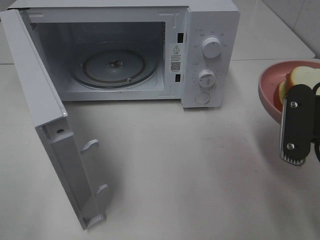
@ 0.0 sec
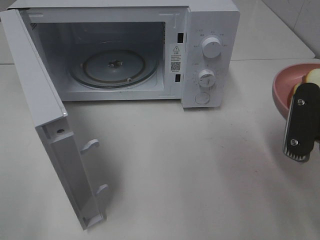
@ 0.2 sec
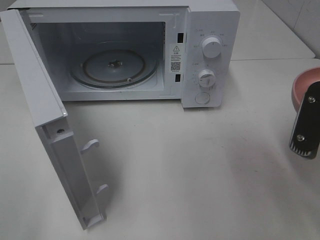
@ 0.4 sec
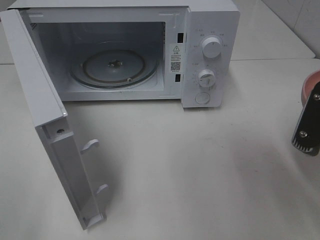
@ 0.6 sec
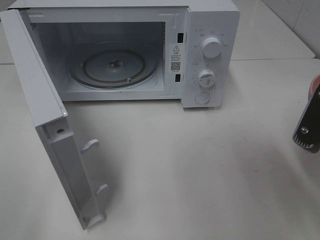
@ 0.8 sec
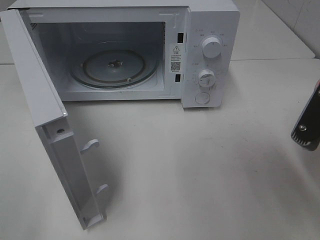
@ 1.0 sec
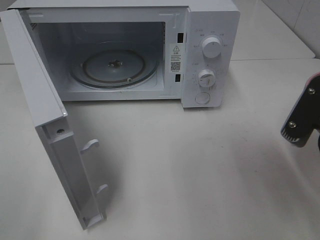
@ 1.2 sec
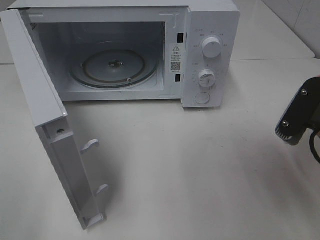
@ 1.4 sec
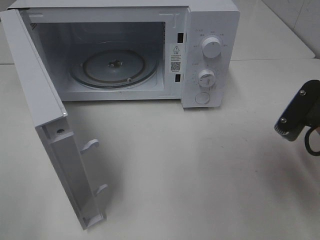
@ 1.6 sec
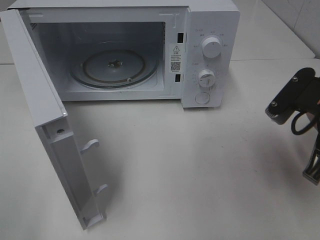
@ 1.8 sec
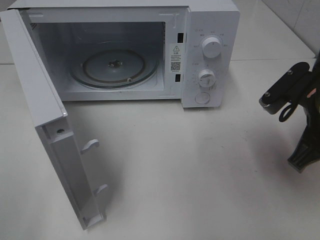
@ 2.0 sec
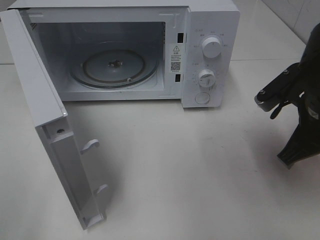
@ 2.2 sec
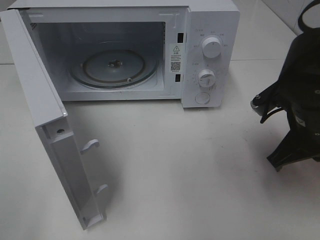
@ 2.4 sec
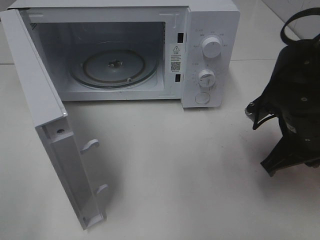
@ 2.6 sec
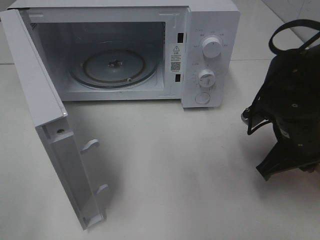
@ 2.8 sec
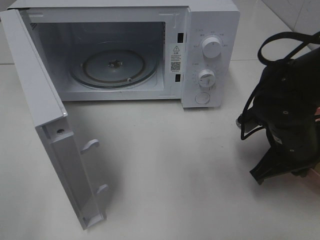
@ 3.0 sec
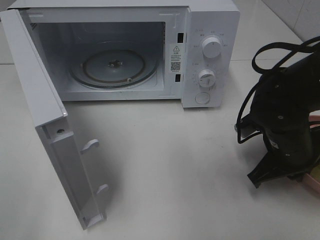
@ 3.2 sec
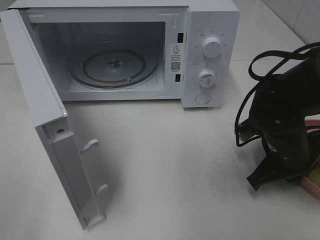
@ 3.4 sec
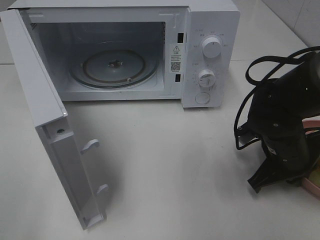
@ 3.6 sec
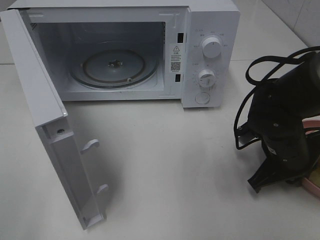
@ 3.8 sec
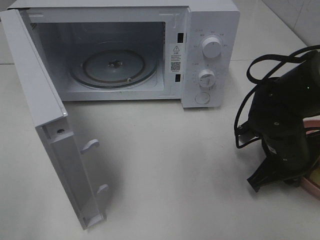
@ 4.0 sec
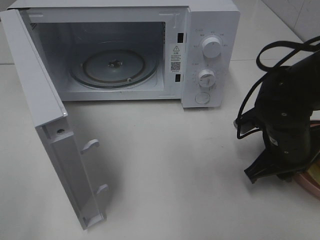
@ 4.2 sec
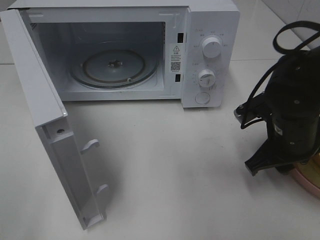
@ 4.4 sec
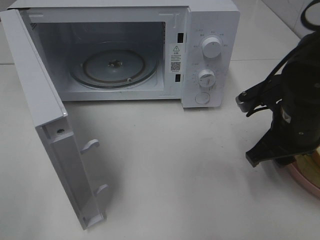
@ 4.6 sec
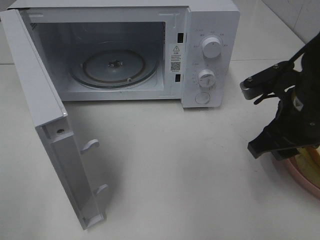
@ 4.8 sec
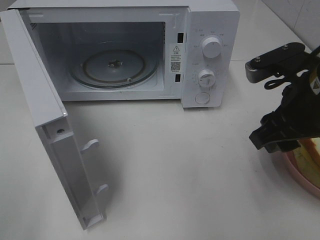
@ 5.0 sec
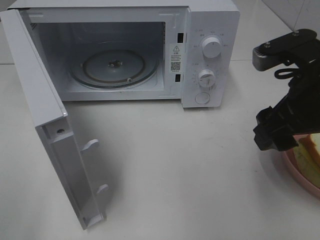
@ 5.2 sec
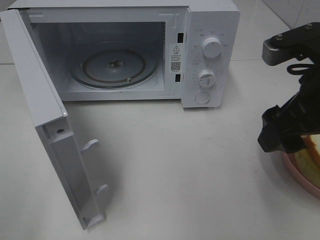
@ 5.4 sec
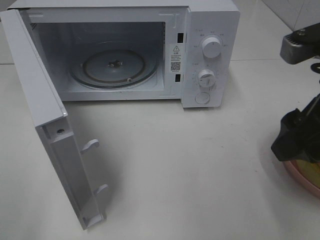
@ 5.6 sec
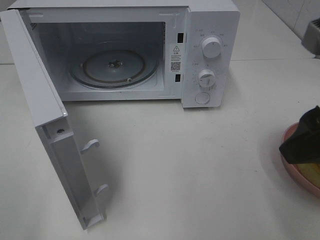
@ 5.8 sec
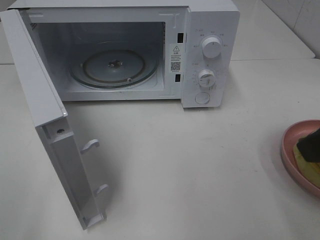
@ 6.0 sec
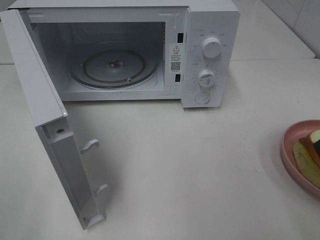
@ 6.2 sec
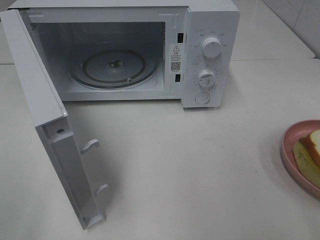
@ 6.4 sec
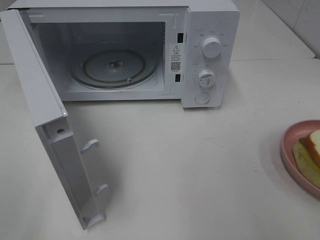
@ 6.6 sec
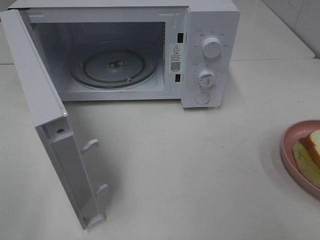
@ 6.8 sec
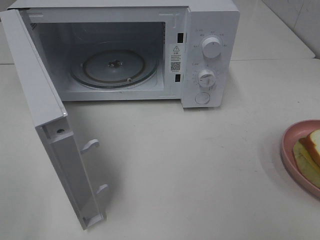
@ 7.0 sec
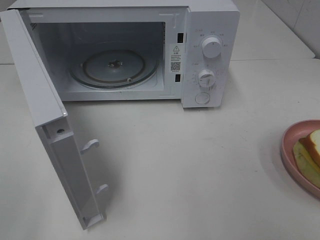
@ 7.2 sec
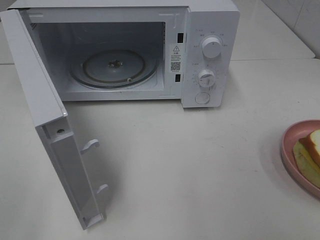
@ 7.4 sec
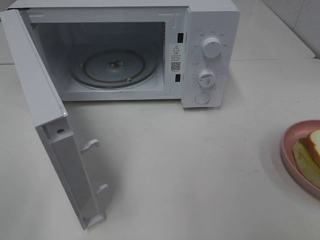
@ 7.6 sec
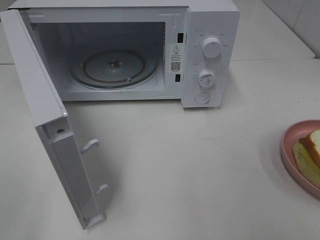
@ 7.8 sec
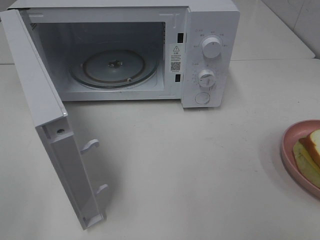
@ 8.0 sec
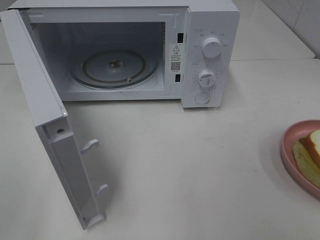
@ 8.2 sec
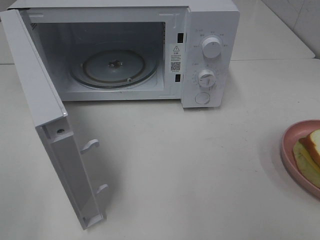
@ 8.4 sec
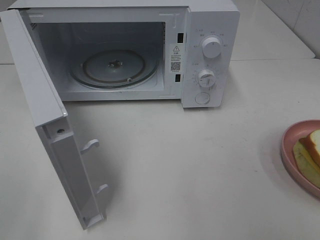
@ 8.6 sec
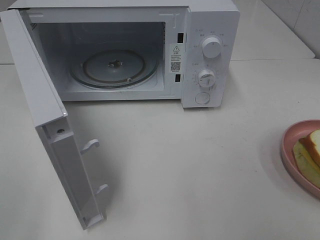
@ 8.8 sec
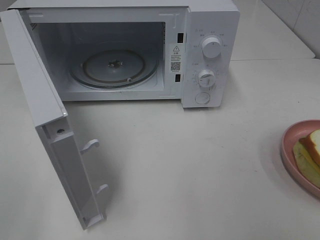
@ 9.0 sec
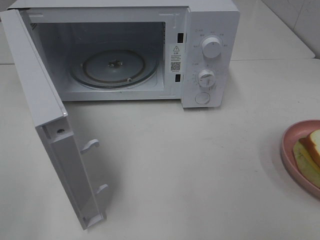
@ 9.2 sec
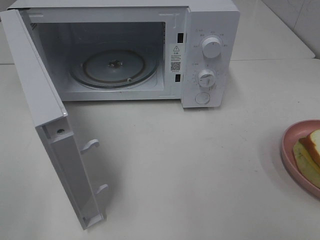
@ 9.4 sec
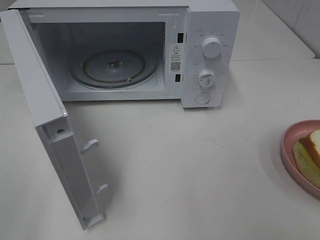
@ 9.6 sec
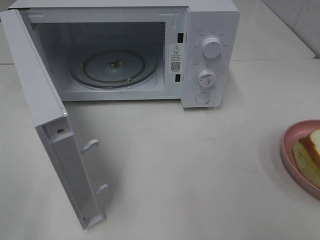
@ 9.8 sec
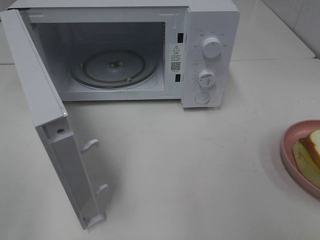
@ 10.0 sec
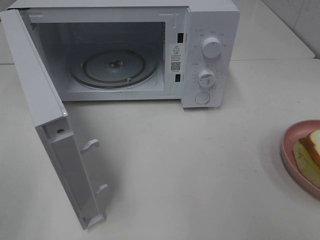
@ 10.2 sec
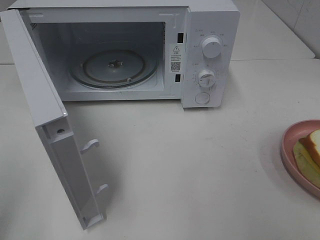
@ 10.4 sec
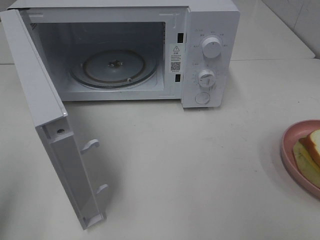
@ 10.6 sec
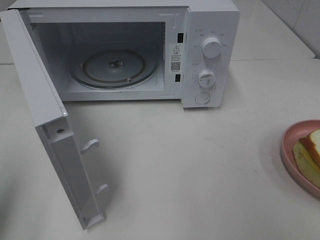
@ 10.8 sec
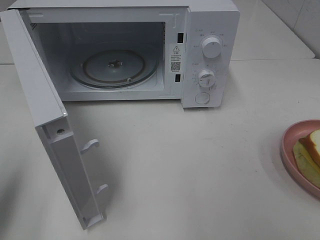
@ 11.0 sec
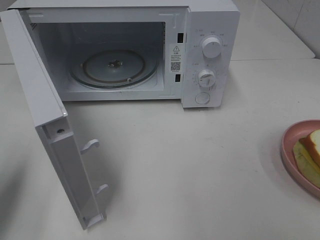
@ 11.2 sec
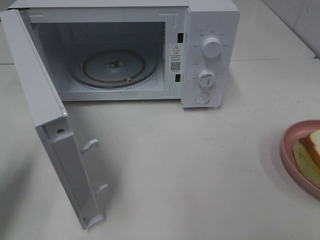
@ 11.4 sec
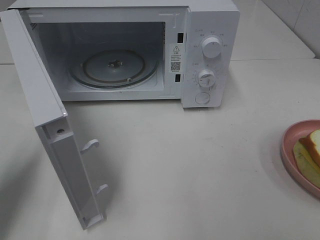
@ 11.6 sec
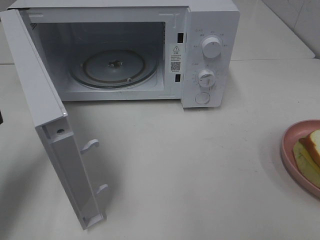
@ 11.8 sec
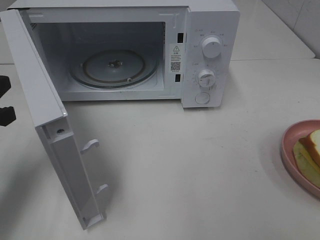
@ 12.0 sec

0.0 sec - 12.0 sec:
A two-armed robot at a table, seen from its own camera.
Task of the whole recording: Heat Sandwich.
Step, 0.0 sec - 4.8 sec: Right hand: place the plate on the table.
1.6 sec - 3.0 sec: The right gripper moves downward and forward, approximately 10 cm.
3.0 sec - 4.4 sec: The right gripper opens.
4.4 sec - 6.0 sec: The right gripper shifts approximately 20 cm upward and backward, and opens up.
6.0 sec - 7.6 sec: The right gripper is displaced backward and to the right by about 15 cm.
7.6 sec - 9.0 sec: Neither gripper changes place.
10.4 sec - 12.0 sec: The left gripper goes roughly 20 cm forward and downward.

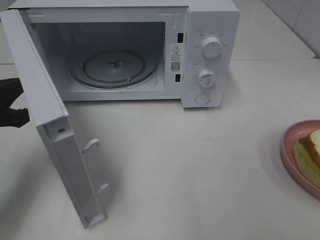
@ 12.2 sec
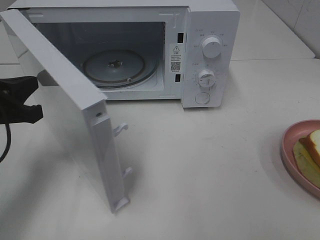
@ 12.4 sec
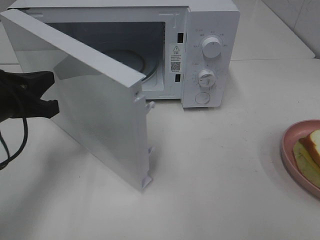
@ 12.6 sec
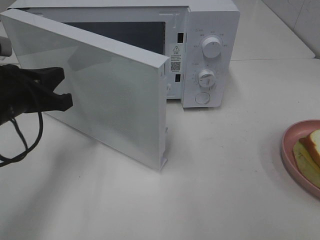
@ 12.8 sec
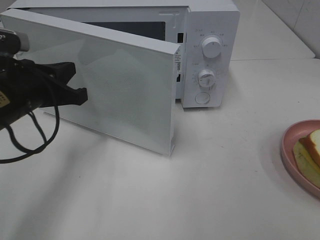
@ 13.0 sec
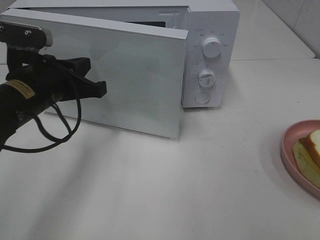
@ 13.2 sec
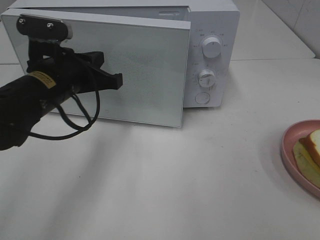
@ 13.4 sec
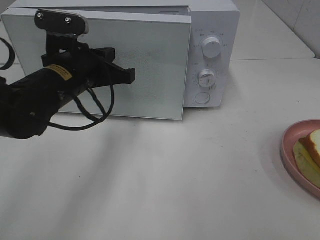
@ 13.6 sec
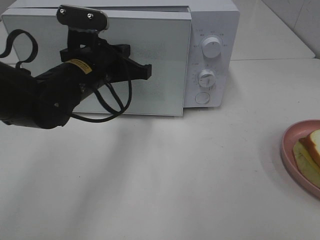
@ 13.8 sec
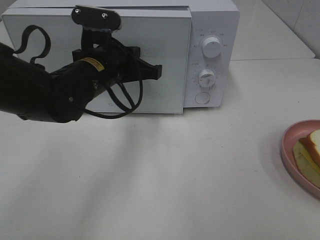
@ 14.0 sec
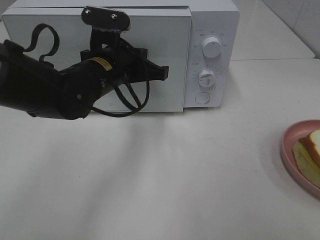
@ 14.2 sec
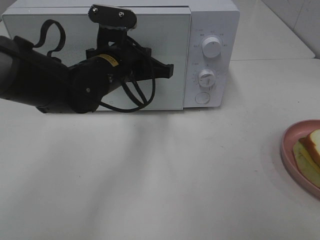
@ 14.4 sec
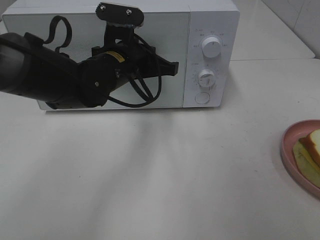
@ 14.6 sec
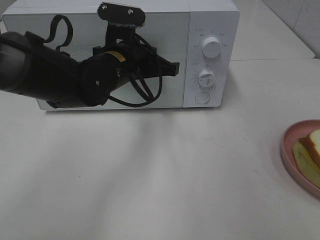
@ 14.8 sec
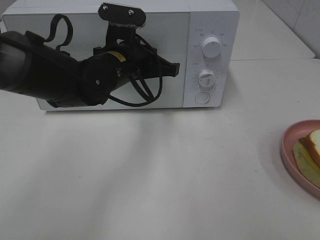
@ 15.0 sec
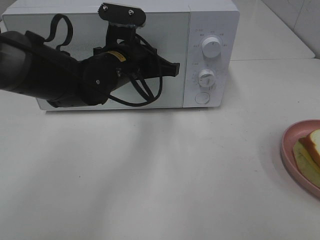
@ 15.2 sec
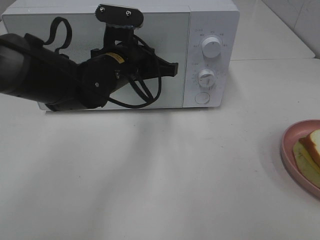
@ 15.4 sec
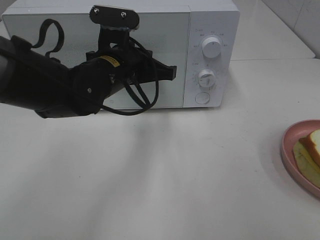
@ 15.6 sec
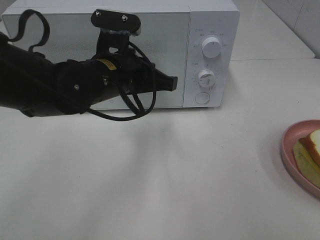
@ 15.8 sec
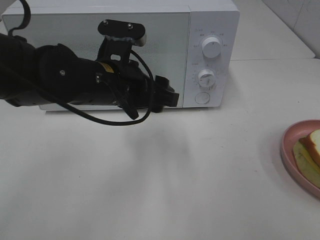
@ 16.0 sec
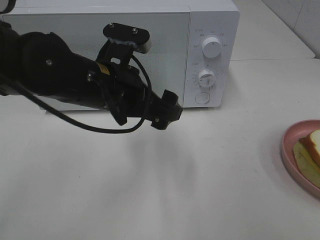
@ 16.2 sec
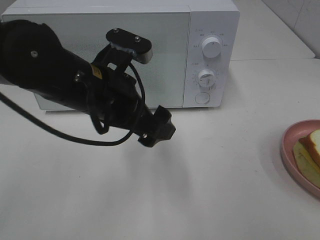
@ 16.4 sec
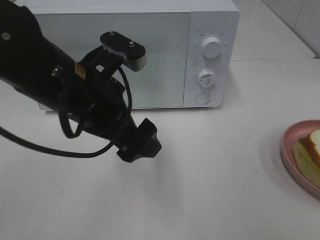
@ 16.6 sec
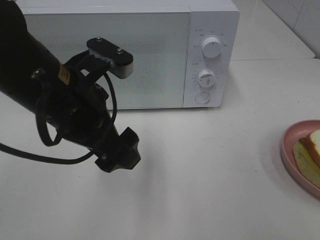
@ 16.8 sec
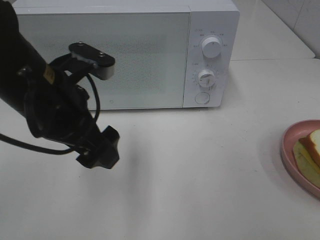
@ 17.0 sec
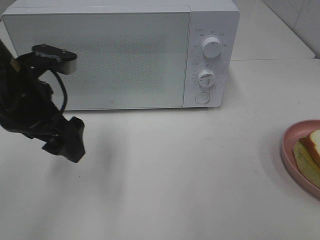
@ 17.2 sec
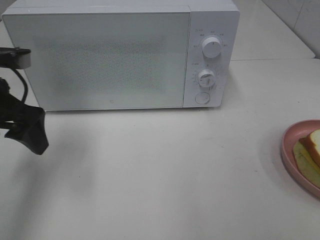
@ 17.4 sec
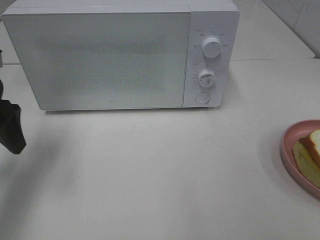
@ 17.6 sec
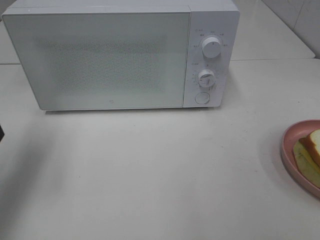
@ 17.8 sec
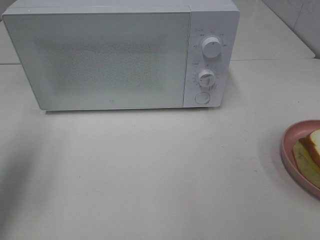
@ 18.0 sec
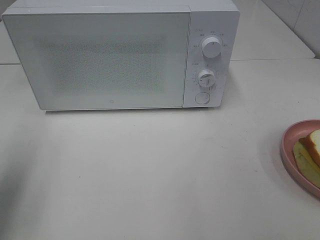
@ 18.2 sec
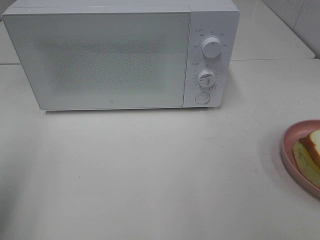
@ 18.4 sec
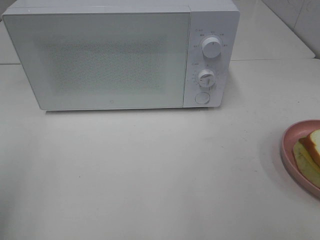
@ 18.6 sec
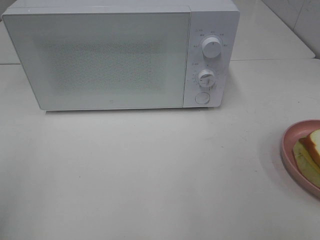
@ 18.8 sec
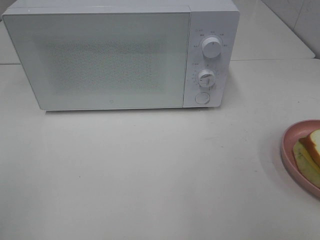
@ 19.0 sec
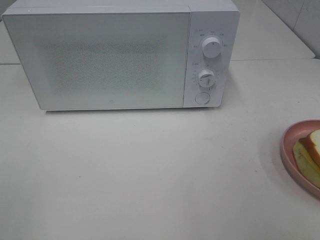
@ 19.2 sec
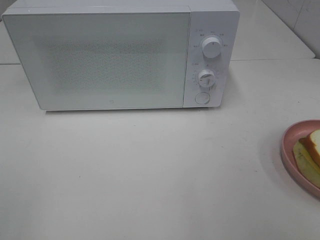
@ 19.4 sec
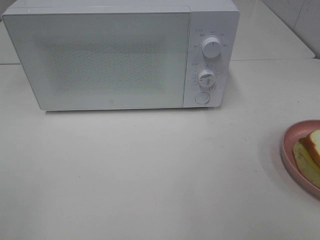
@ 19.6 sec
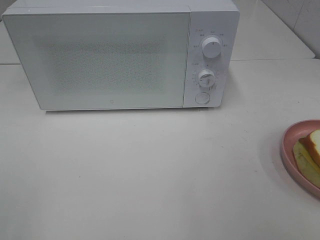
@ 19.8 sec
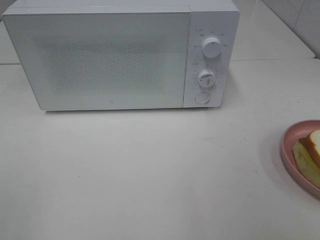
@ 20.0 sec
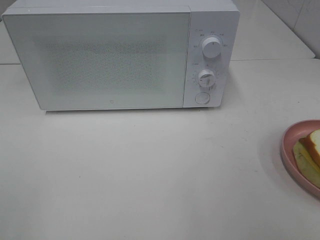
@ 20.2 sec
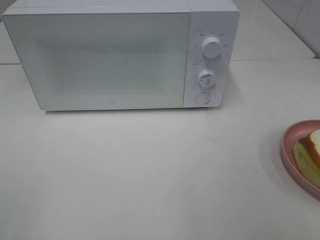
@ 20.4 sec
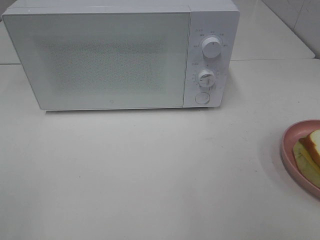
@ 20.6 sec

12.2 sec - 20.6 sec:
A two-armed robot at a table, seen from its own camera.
Task of the whole recording: Heat Sandwich.
Step, 12.2 sec - 15.8 sec: Left hand: close the microwave door.
12.2 sec - 13.6 sec: The left gripper heads to the right and forward, covering some 15 cm.
13.6 sec - 15.0 sec: The left gripper moves to the right, some 5 cm.
15.0 sec - 16.4 sec: The left gripper moves backward, approximately 10 cm, and opens.
16.4 sec - 17.8 sec: The left gripper is displaced to the left by roughly 20 cm.
17.8 sec - 19.2 sec: The left gripper is displaced backward by about 25 cm.
19.2 sec - 20.6 sec: Both grippers stay about where they are.
